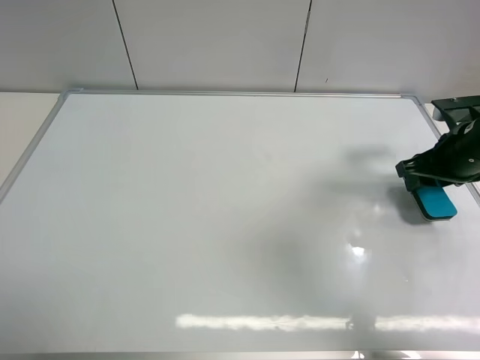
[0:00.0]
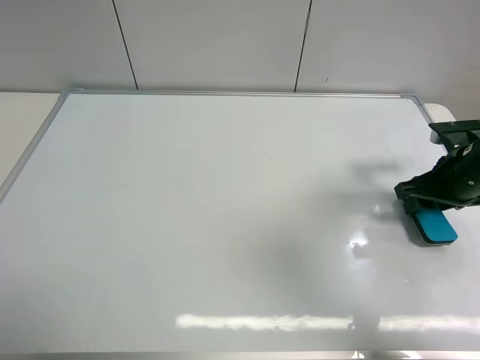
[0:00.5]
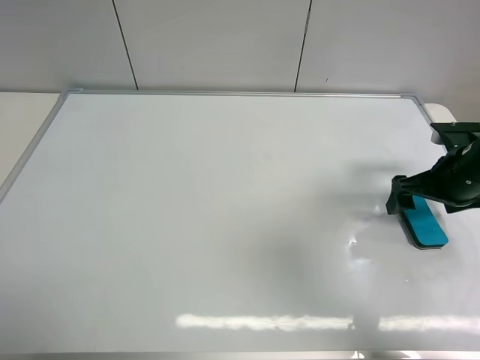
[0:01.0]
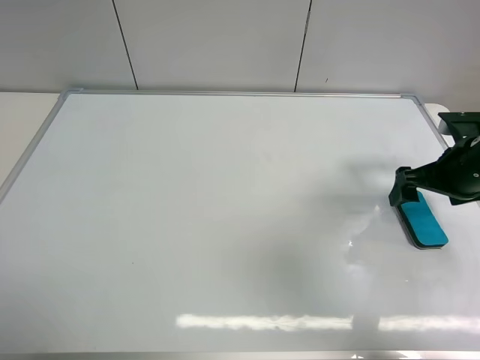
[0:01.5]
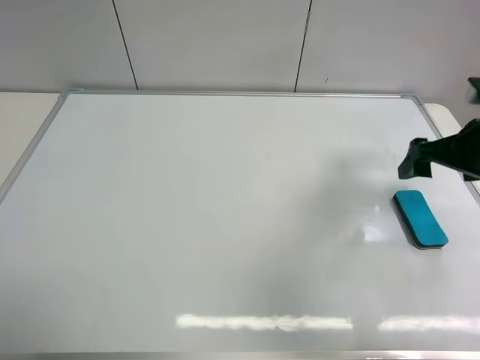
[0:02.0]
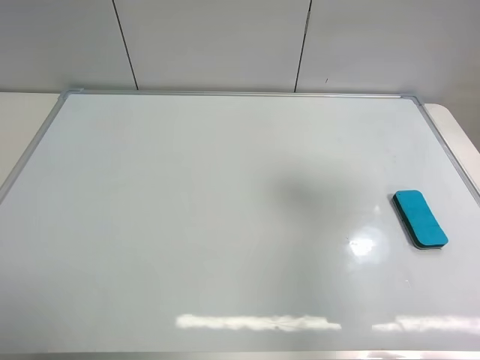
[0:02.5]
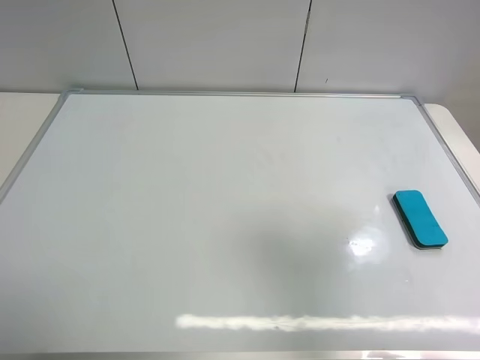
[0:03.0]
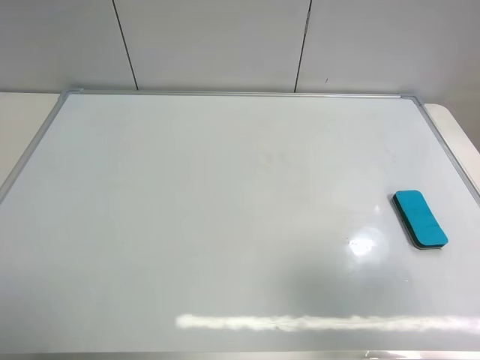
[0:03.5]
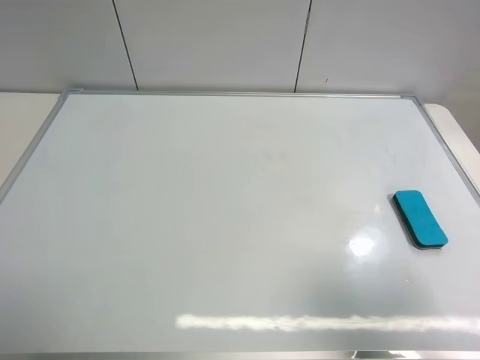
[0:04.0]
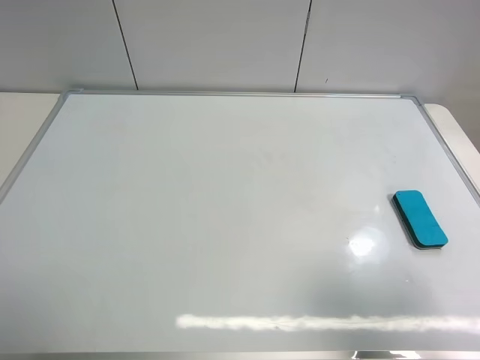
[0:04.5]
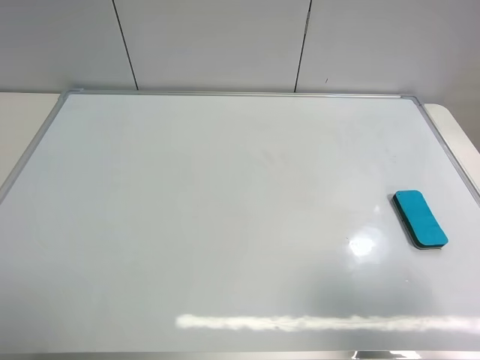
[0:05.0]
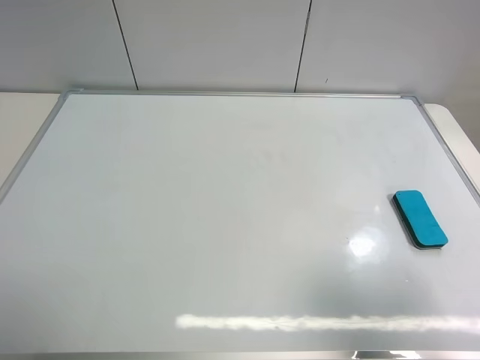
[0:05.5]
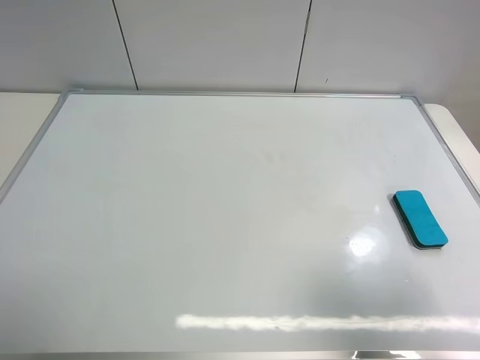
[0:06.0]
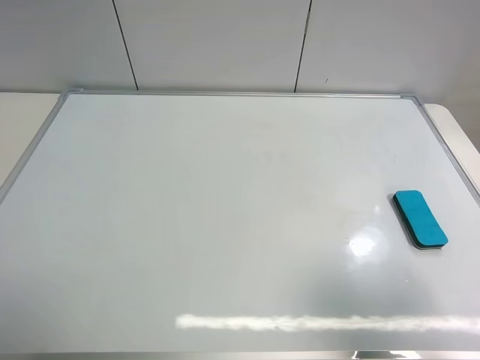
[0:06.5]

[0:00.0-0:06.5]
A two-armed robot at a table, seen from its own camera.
Task of the whole recording: use the left gripper to place the eraser in the right, use the right gripper to pick up the eraser, wipe the notes on the whiteboard clean, and then put it down.
0:00.0 to 0:02.0: The right gripper is displaced upward by approximately 5 cm, and opens its fingers.
0:02.0 to 0:04.5: The right gripper heads backward, covering about 25 cm.
0:04.5 to 0:06.5: Both grippers stay about where they are.
